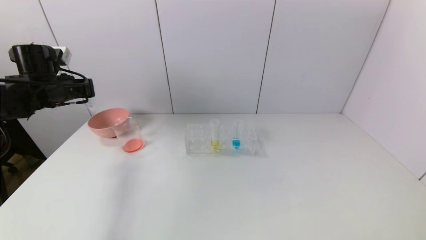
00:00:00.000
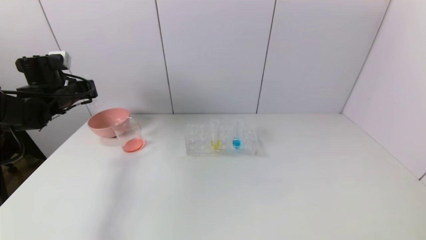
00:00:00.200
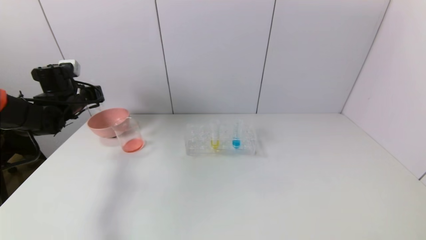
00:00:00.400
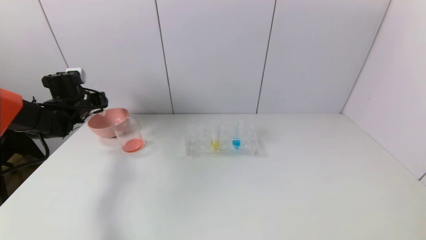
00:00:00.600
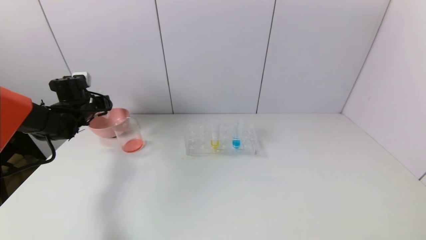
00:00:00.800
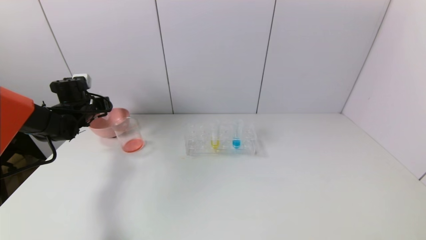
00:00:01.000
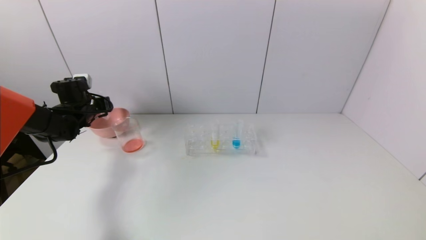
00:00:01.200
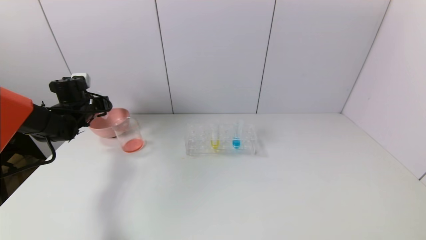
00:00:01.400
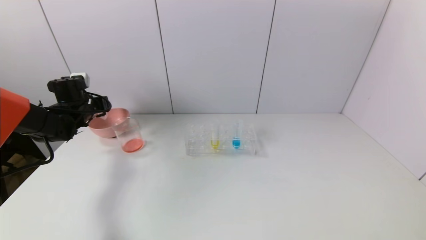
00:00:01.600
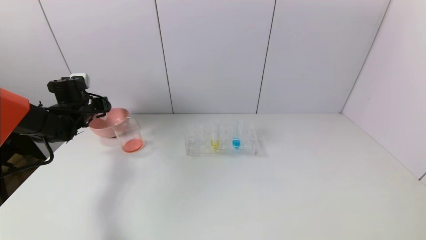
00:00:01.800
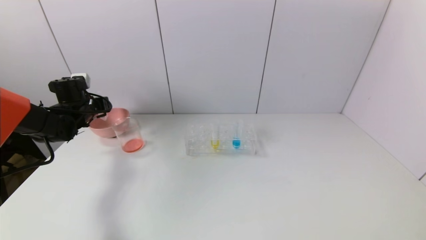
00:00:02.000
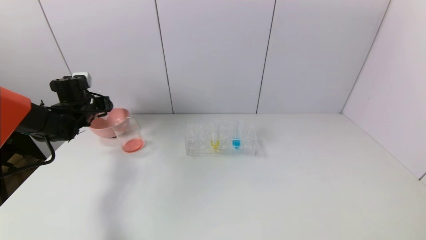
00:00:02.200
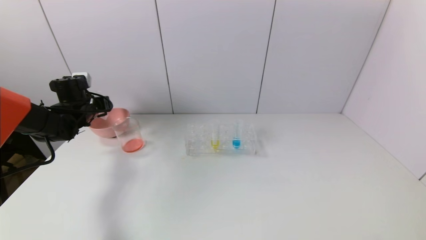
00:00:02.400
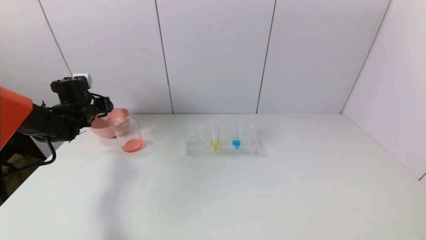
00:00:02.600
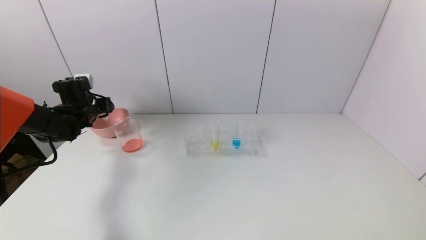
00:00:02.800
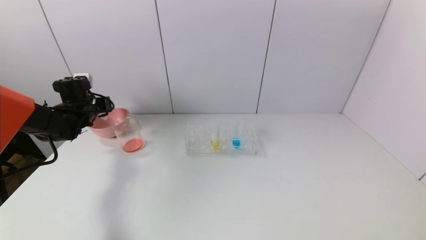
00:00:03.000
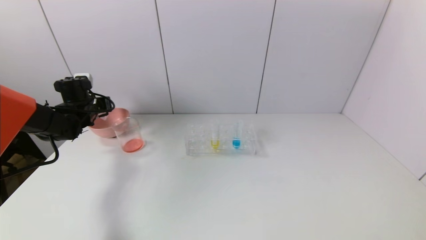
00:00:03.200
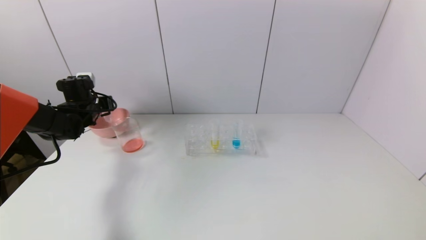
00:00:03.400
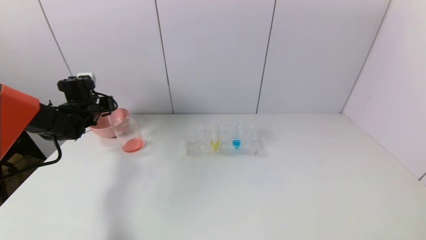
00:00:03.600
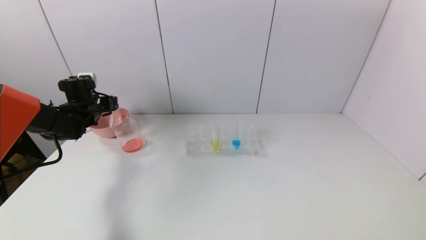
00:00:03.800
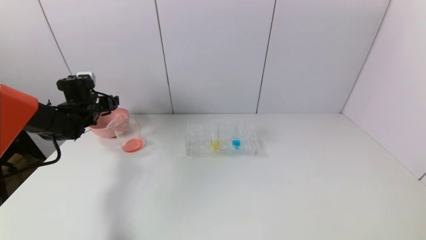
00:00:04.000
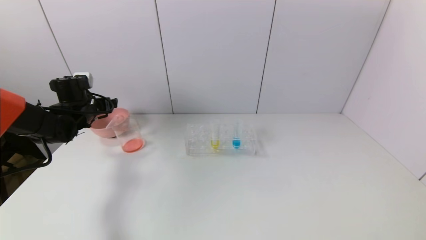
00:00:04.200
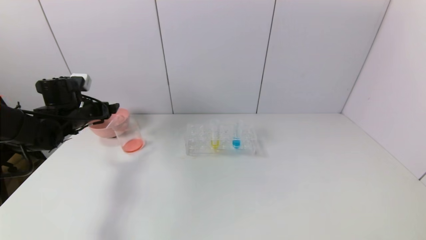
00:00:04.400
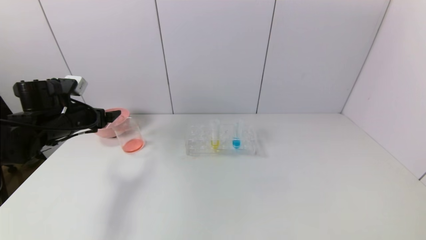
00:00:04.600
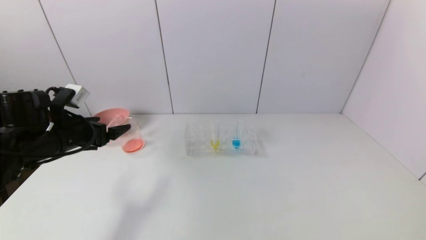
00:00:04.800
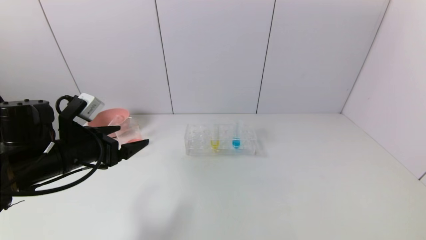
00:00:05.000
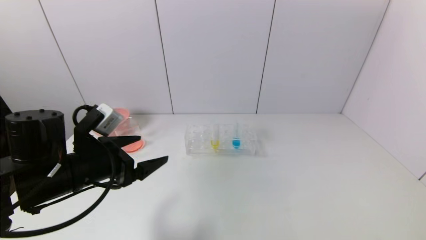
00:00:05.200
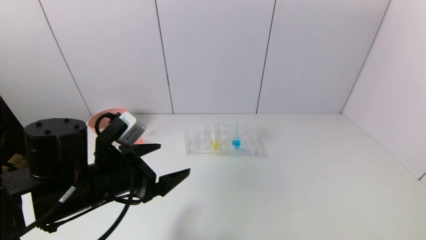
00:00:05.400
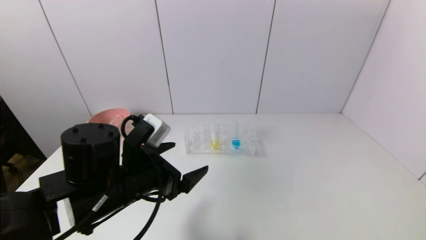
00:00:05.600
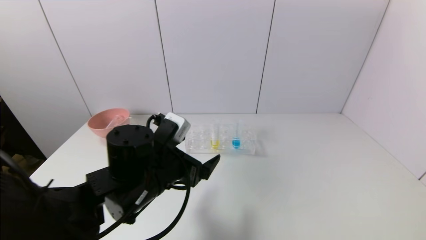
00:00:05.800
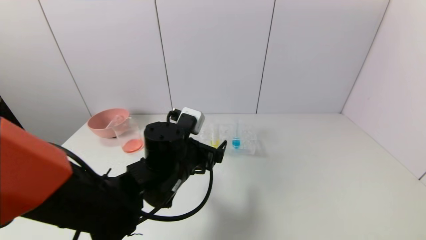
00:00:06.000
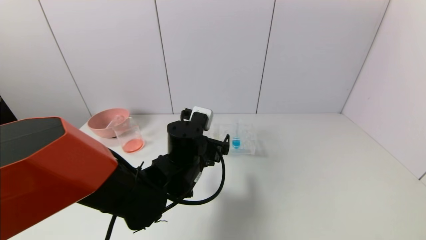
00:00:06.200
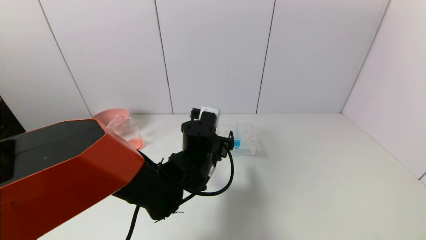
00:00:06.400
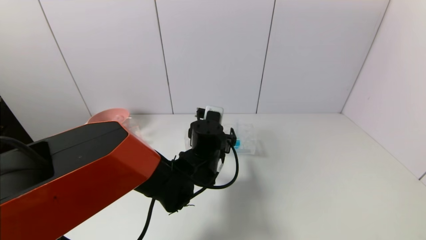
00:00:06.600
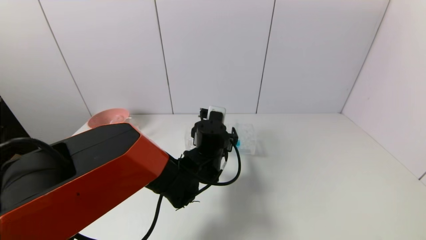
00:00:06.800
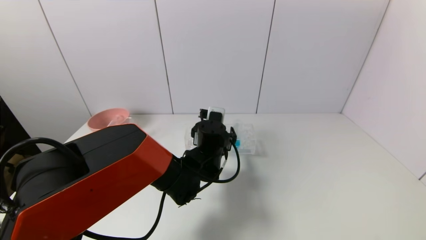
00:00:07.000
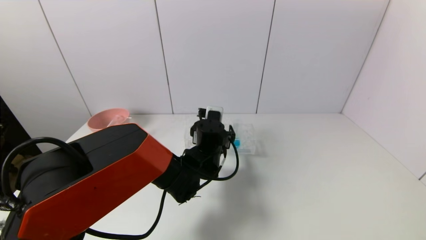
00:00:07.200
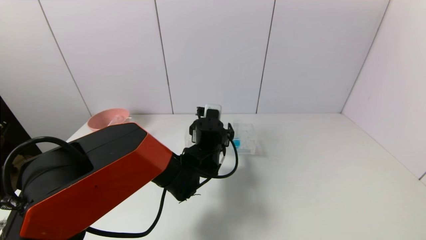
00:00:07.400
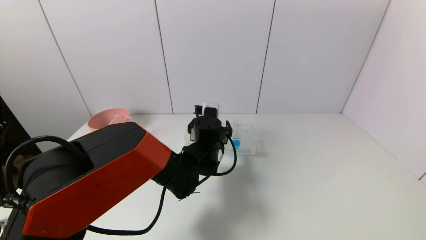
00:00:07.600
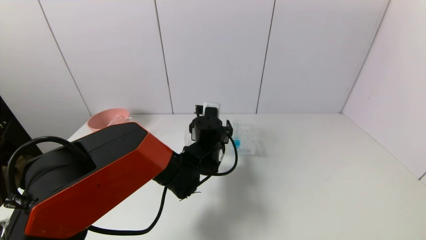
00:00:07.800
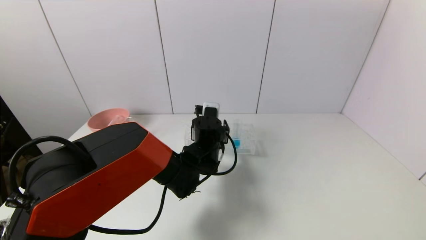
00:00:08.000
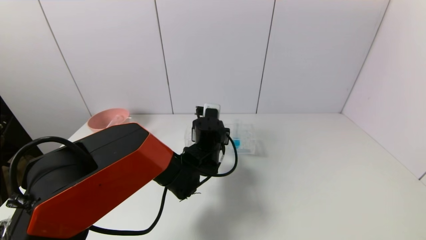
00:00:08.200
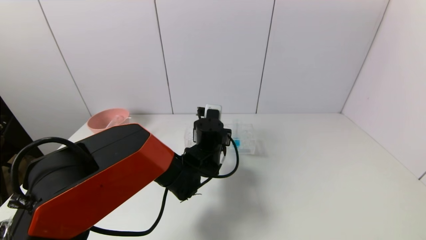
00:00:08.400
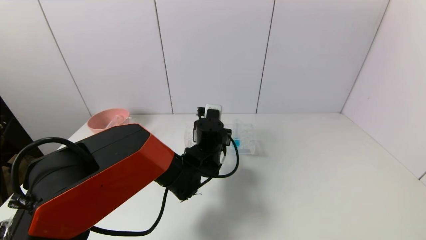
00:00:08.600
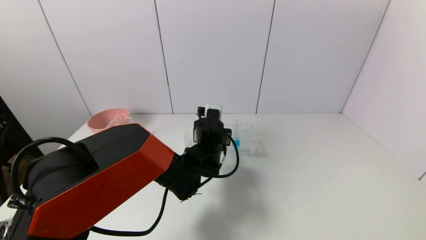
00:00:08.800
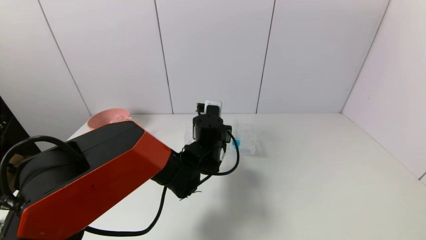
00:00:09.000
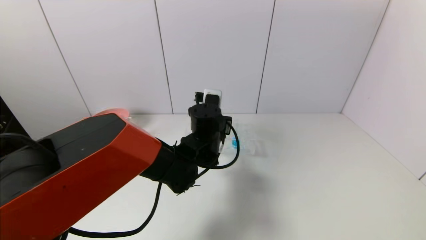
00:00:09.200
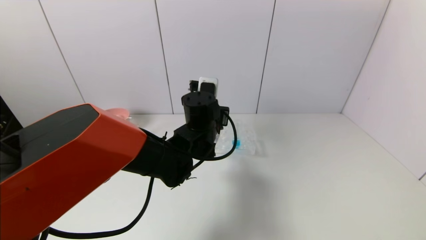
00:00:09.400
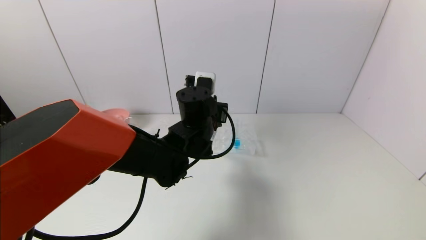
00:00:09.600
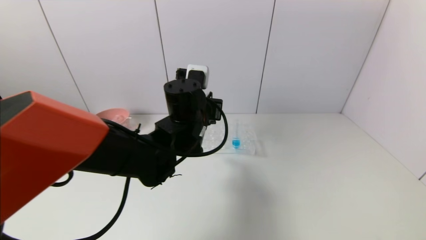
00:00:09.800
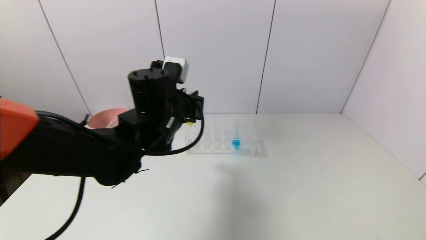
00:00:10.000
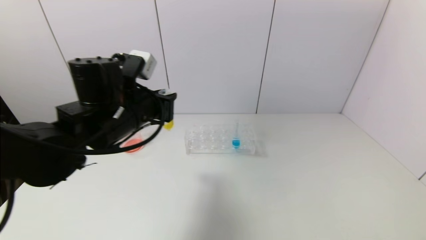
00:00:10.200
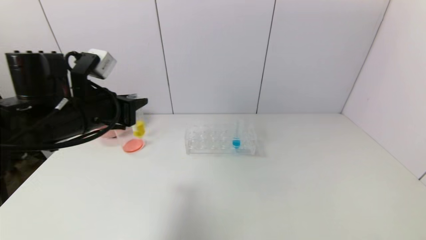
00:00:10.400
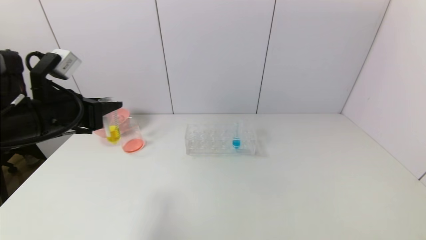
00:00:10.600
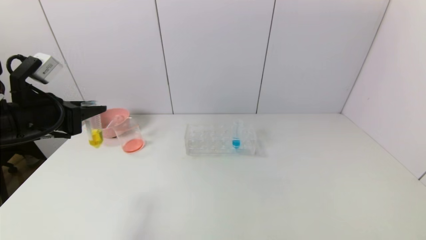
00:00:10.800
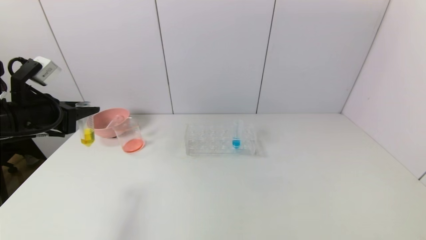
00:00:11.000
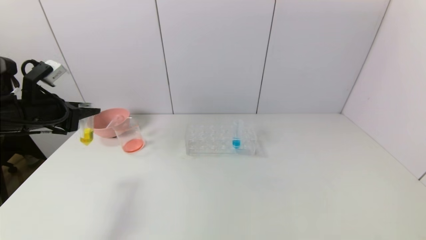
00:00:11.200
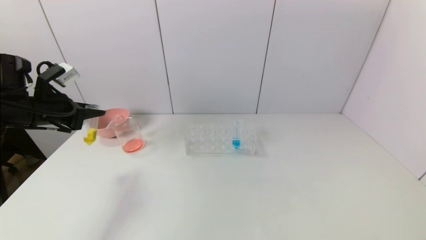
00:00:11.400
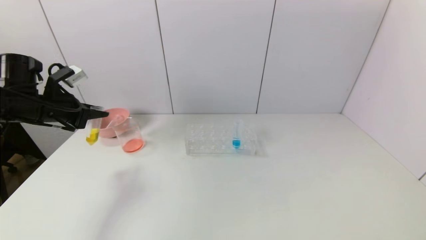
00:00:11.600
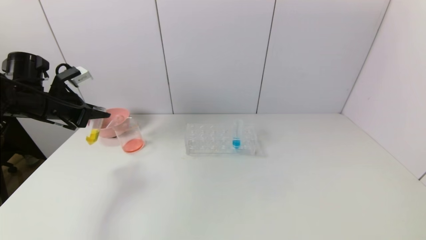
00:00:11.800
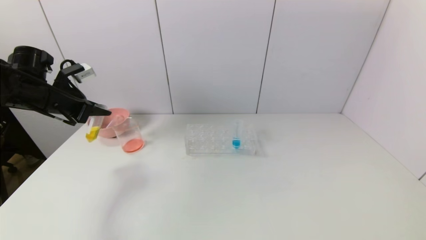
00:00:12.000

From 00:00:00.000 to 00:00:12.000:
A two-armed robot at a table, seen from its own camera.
Task of the whole recording: pick up the test tube with yellow pigment and the test tube with red pigment by grippers and pour them into the beaker.
Step, from 00:00:00.000 to 00:00:03.800: Place the test tube into the pink bowl with the left gripper.
Step, from 00:00:04.000 to 00:00:08.400: Grasp the yellow reagent with the left gripper.
From 00:00:00.000 to 00:00:01.600: The left gripper travels downward and forward by approximately 10 cm.
From 00:00:01.600 to 00:00:03.000: Neither gripper changes place.
From 00:00:03.000 to 00:00:04.400: The left gripper is displaced backward by some 5 cm, and opens.
From 00:00:04.400 to 00:00:06.000: The left gripper is displaced to the right and backward by some 30 cm.
From 00:00:06.000 to 00:00:07.600: The left gripper goes roughly 10 cm forward and to the right.
From 00:00:07.600 to 00:00:09.000: The left gripper closes its fingers.
From 00:00:09.000 to 00:00:10.400: The left gripper heads to the left, upward and backward, covering about 30 cm.
From 00:00:10.400 to 00:00:12.000: The left gripper heads to the left and forward, covering roughly 15 cm.

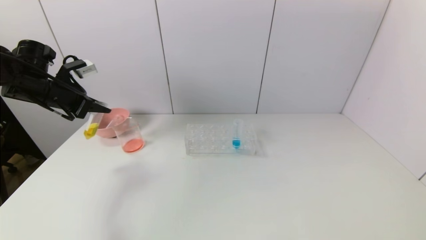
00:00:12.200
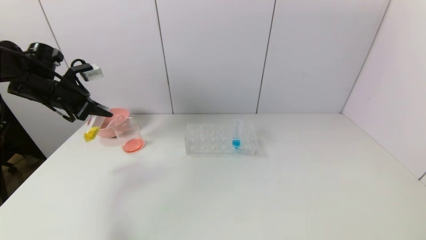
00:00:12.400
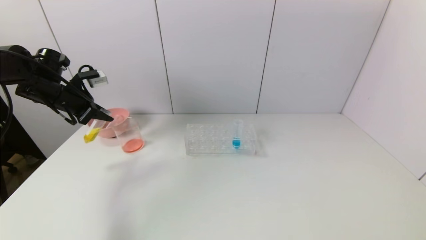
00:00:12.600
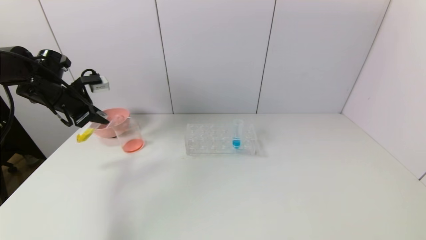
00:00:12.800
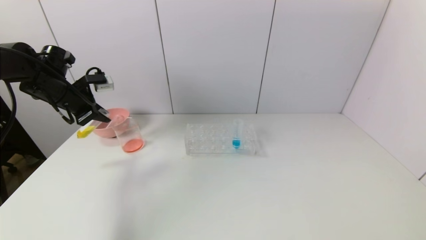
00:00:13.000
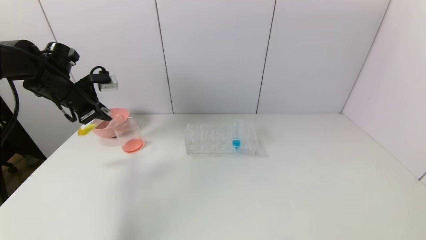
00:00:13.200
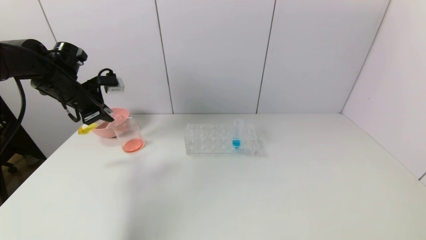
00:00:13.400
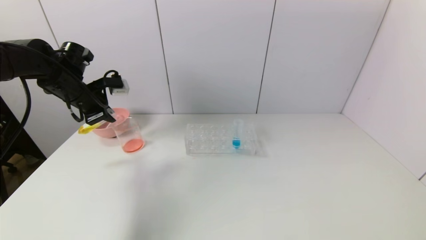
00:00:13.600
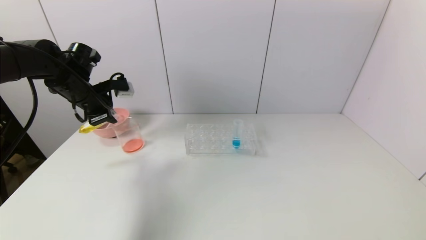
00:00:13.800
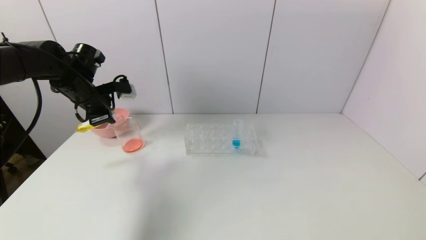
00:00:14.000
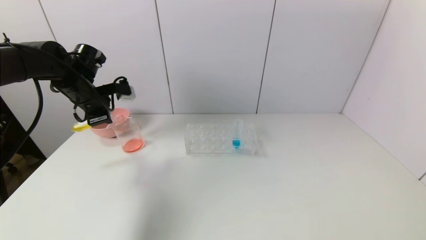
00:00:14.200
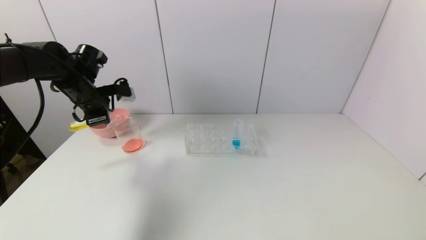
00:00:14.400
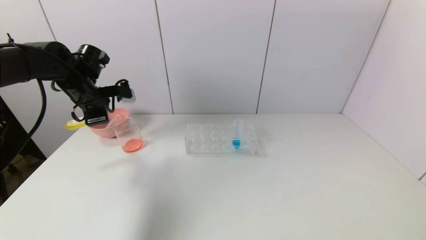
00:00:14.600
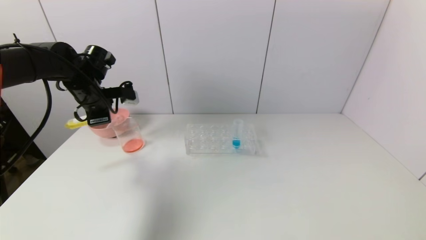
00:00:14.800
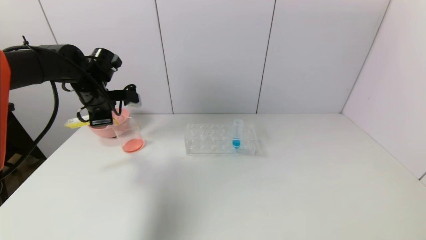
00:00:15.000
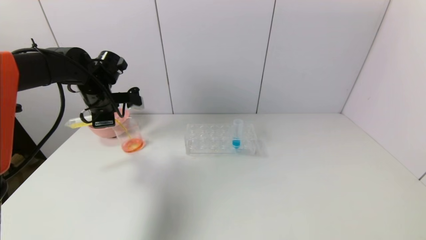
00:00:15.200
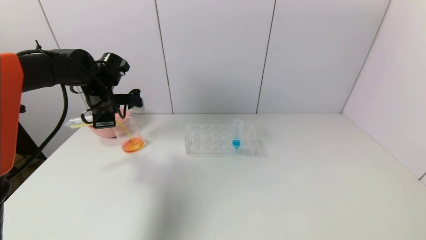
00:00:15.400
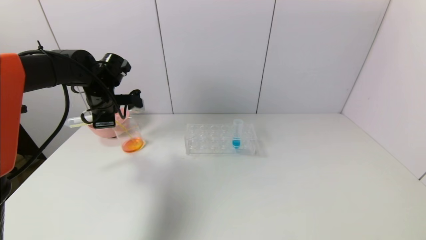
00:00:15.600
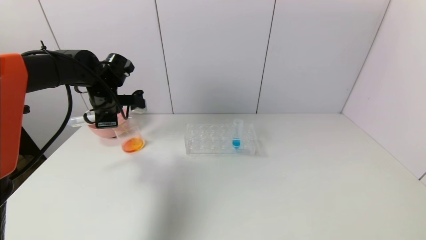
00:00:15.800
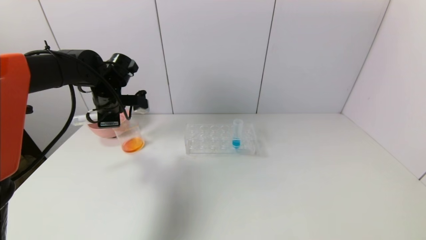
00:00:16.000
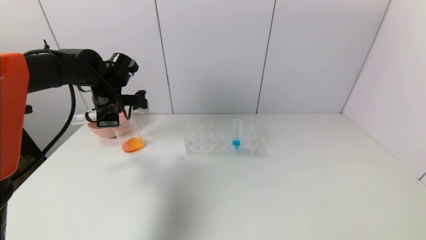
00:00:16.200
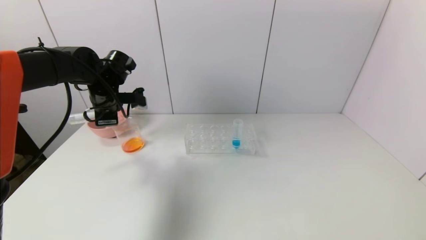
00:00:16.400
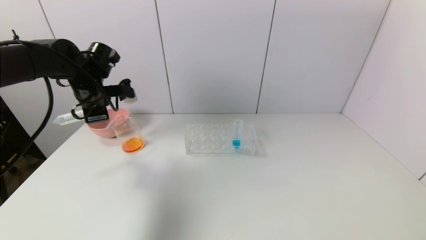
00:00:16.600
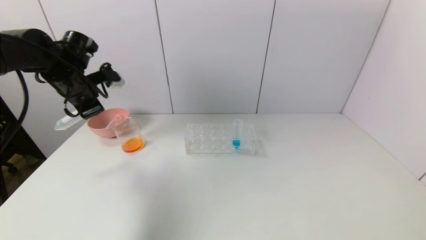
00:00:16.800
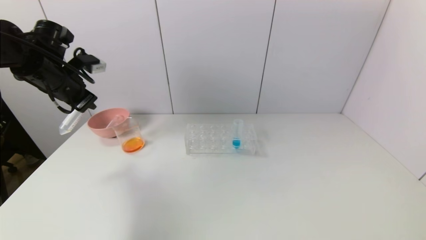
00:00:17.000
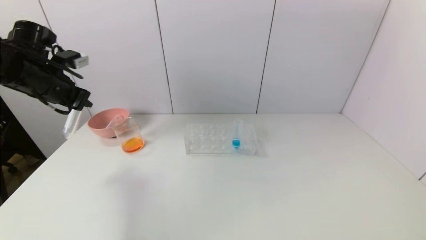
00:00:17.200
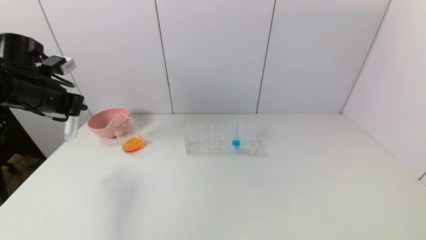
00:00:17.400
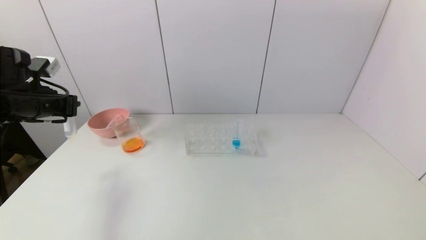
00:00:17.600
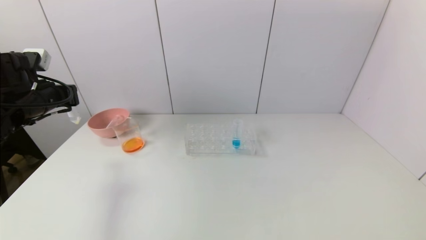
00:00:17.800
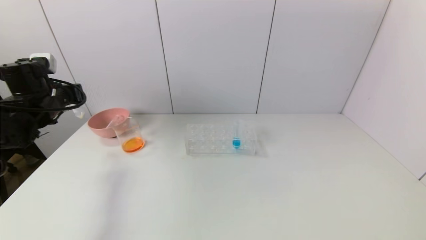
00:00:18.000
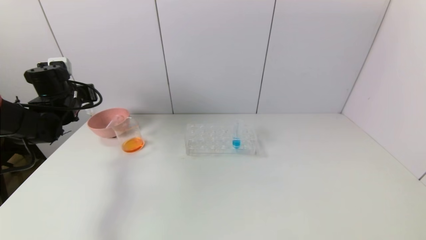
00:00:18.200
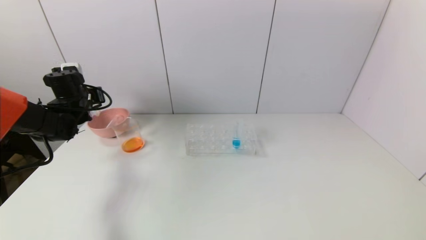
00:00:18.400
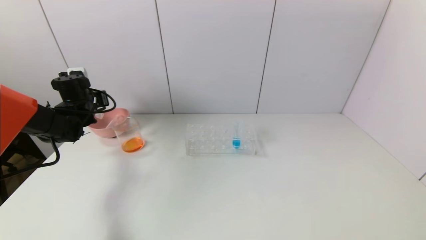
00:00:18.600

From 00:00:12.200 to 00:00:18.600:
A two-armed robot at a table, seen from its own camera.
Task of the whole recording: pick up the test tube with yellow pigment and the test tube with red pigment by grippers and pour them into the beaker.
Step, from 00:00:12.200 to 00:00:16.200: Pour the yellow reagent into the graduated cylinder with the left gripper.
From 00:00:12.200 to 00:00:13.800: The left gripper heads to the right, covering some 5 cm.
From 00:00:15.400 to 00:00:17.000: The left gripper shifts roughly 10 cm upward and to the left.
From 00:00:17.000 to 00:00:18.600: The left gripper goes about 15 cm downward and forward.
